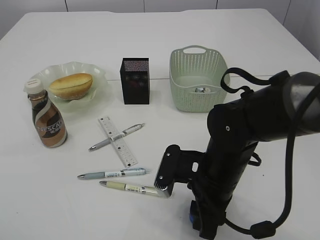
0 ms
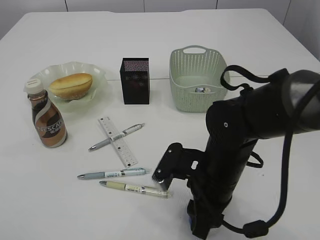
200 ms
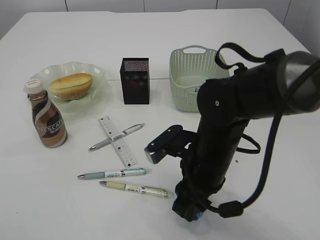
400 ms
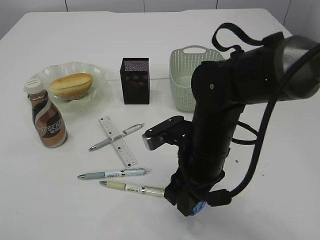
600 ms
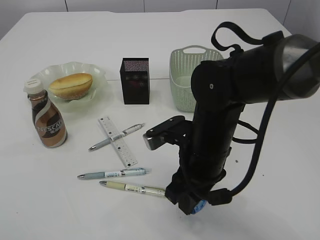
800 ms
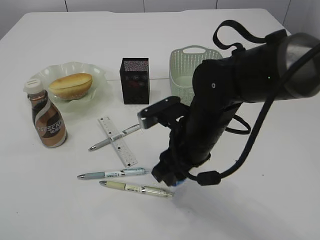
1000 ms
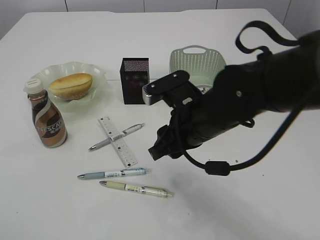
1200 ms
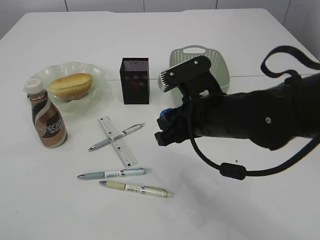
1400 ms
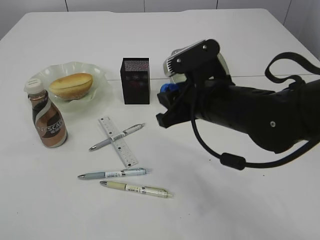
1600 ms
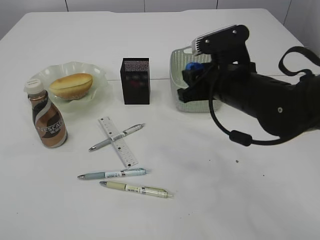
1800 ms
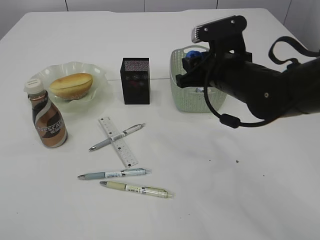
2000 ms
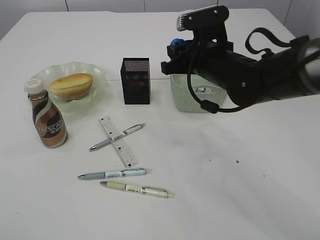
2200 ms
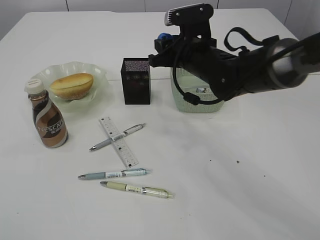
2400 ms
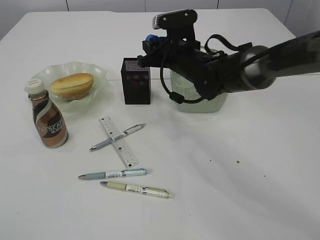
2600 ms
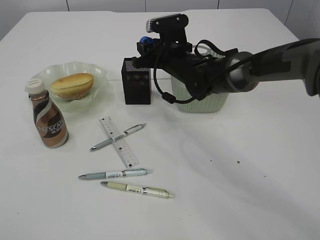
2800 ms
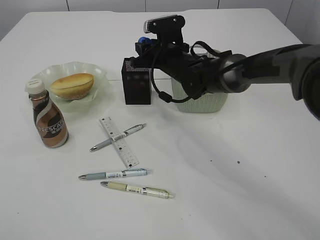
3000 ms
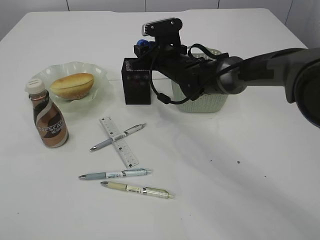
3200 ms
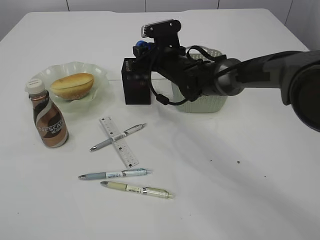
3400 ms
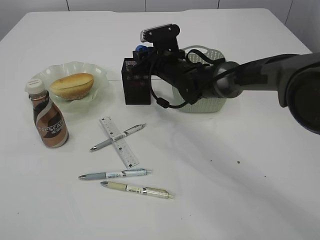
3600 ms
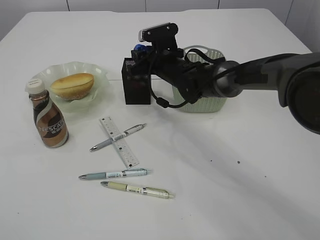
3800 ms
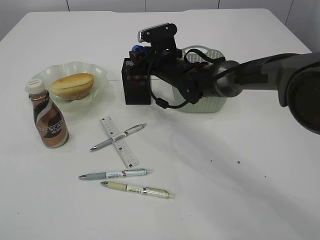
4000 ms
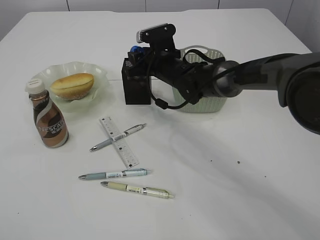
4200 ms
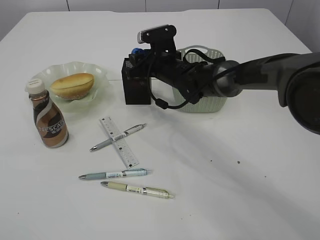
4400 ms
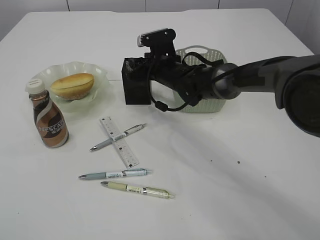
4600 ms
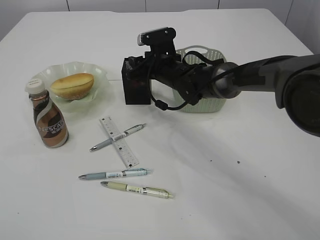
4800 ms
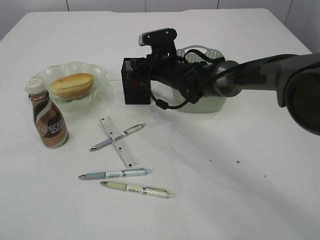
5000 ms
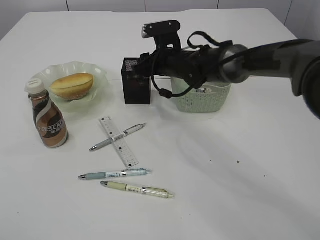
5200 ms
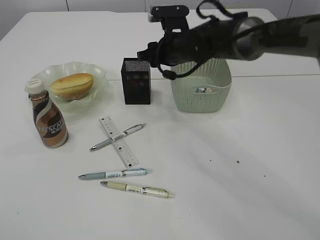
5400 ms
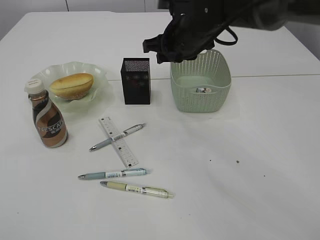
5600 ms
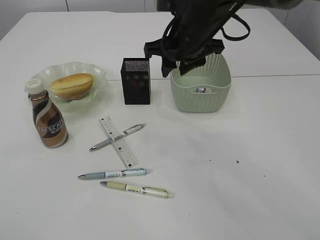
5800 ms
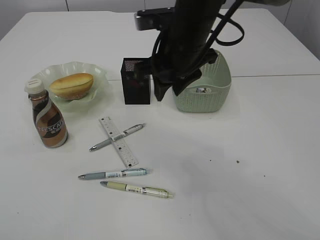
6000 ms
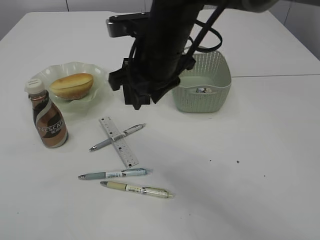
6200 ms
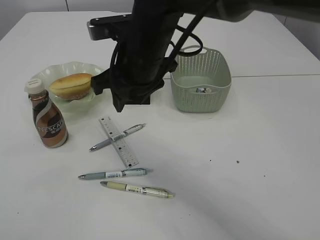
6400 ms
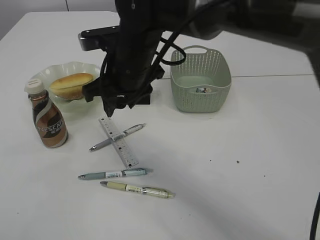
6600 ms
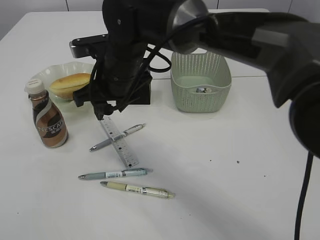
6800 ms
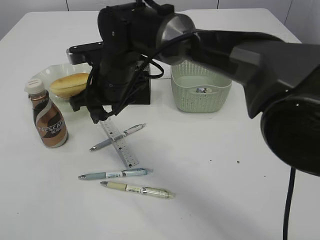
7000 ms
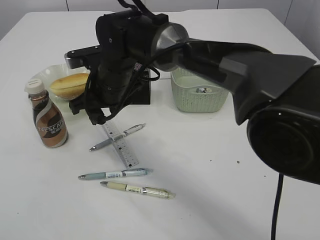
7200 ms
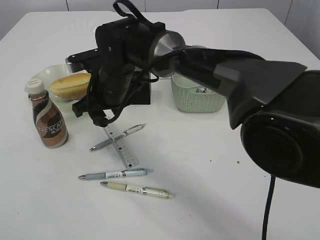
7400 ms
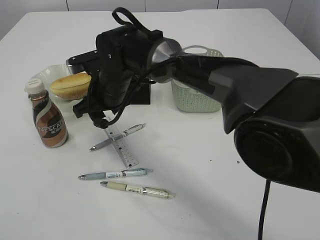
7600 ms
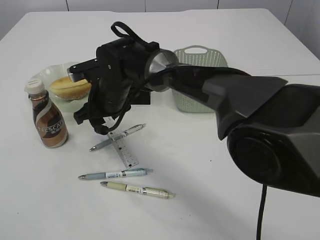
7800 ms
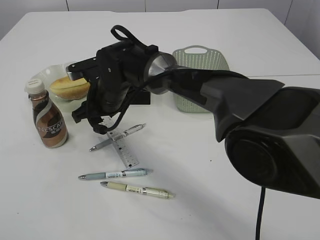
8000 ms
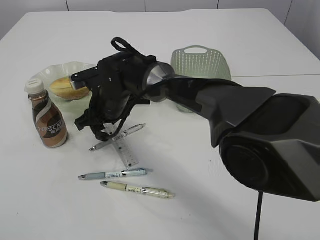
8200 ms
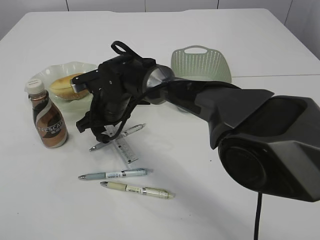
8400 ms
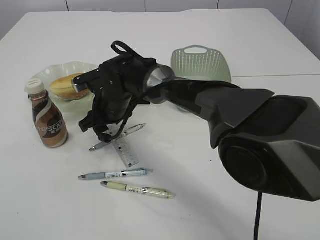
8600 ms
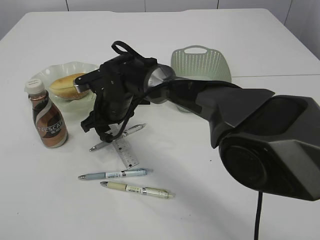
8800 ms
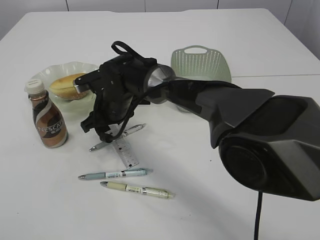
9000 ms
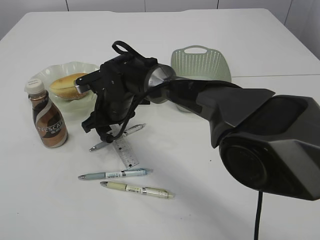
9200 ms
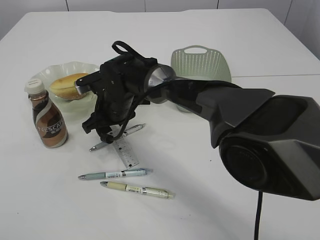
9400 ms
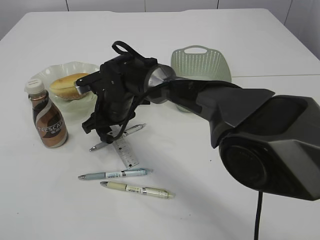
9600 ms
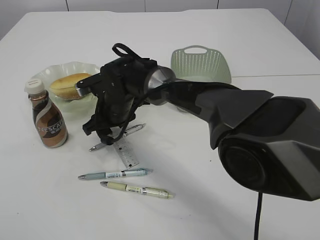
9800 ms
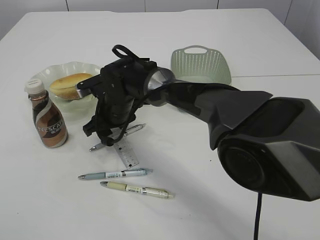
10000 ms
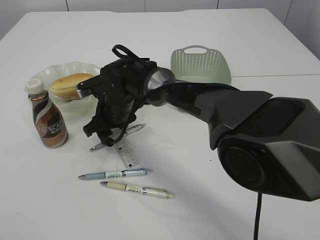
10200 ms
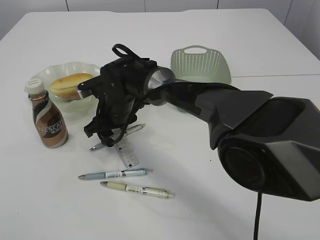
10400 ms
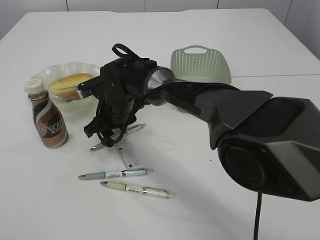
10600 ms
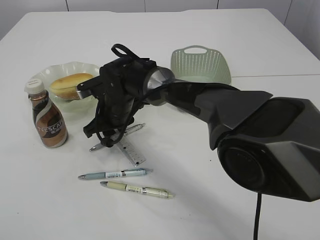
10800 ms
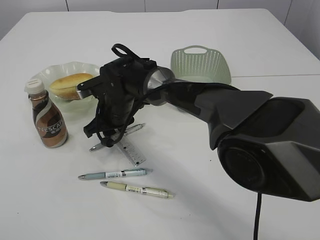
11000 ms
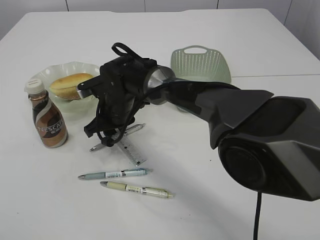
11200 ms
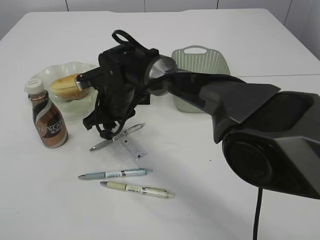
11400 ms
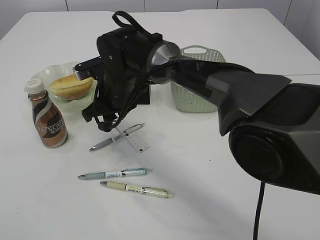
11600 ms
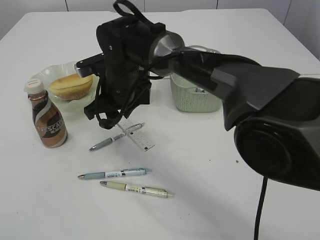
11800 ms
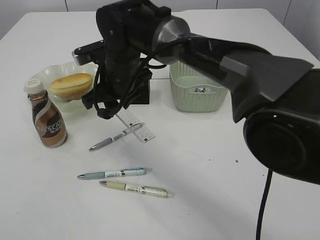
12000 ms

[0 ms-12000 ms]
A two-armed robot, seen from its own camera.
Step, 600 ms to 5200 ms: Place the blue pencil sharpener into the pen holder.
Step, 5400 ms to 11800 ms: pick up the ruler.
0 ms to 1600 ms: The right gripper goes approximately 10 cm upward.
1600 ms to 3000 ms: The right gripper moves forward, roughly 20 cm.
3000 ms to 4400 ms: The grippers make only small movements.
4400 ms to 6000 ms: The right gripper shifts about 20 cm backward and upward.
6000 ms to 7600 ms: The right gripper travels to the left and downward by roughly 15 cm.
7600 ms to 9000 ms: The right gripper goes some 5 cm downward.
9000 ms to 10400 ms: The two grippers keep their place.
10400 ms to 12000 ms: The right gripper travels upward by about 10 cm.

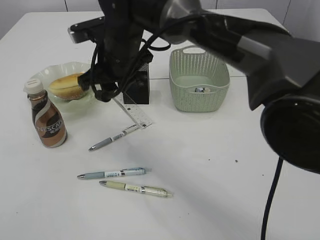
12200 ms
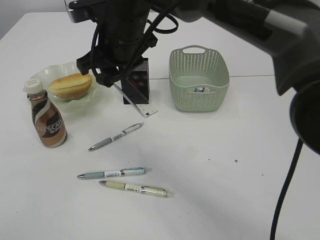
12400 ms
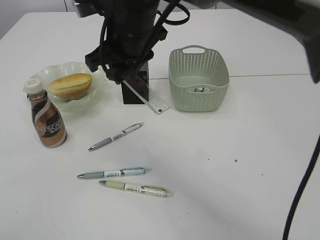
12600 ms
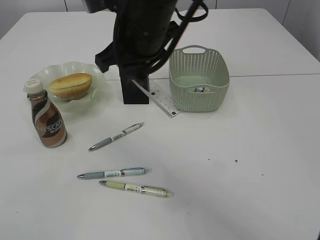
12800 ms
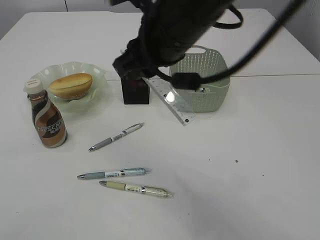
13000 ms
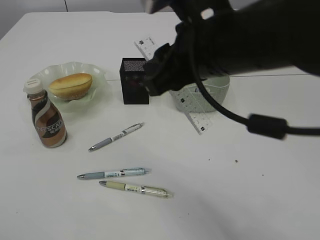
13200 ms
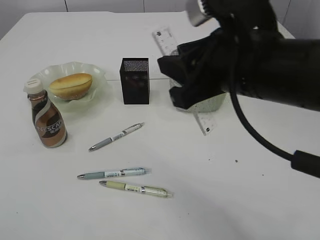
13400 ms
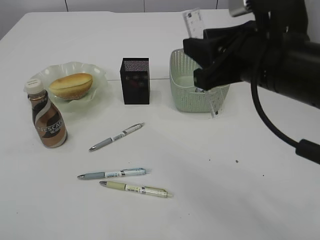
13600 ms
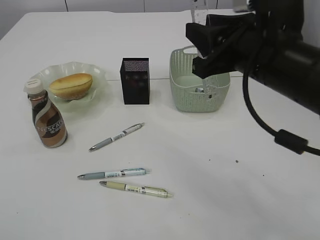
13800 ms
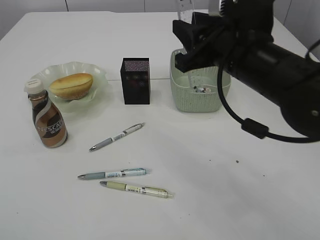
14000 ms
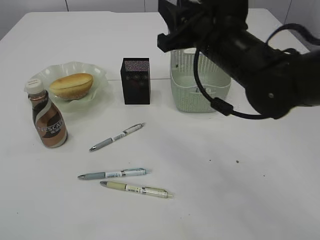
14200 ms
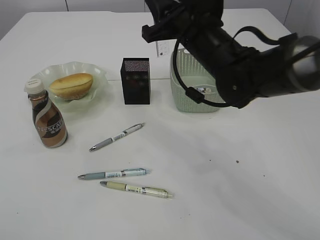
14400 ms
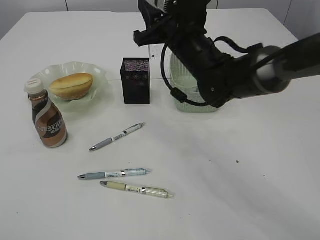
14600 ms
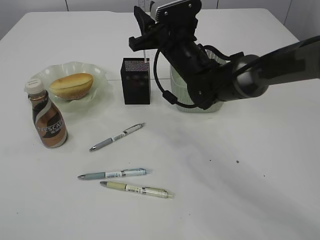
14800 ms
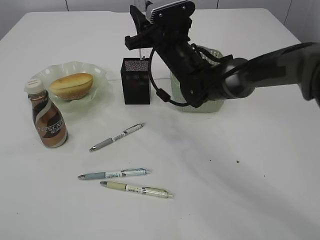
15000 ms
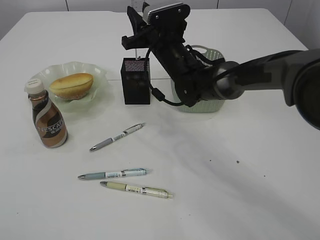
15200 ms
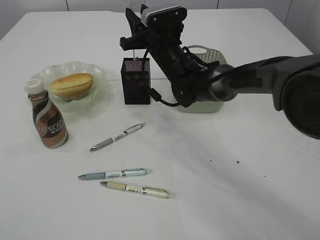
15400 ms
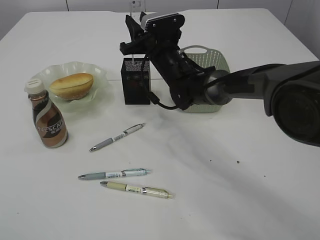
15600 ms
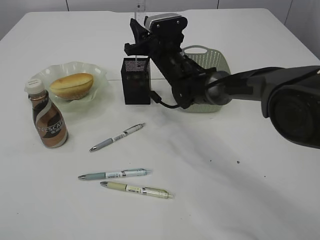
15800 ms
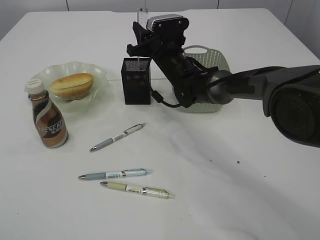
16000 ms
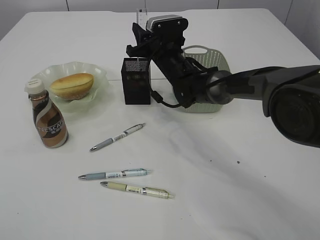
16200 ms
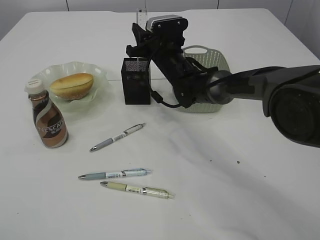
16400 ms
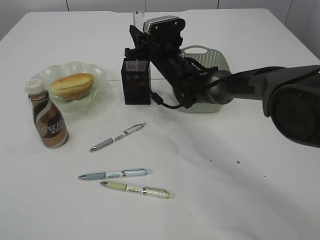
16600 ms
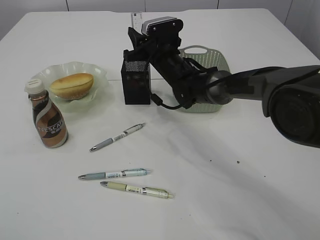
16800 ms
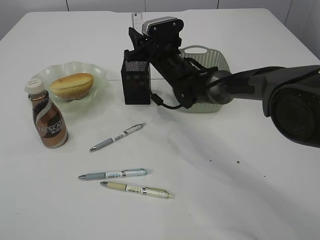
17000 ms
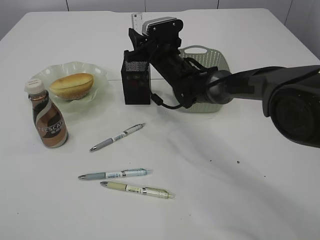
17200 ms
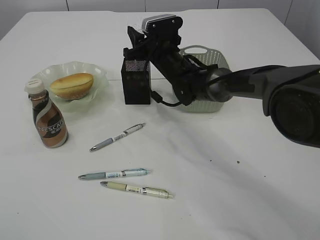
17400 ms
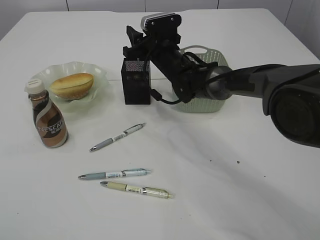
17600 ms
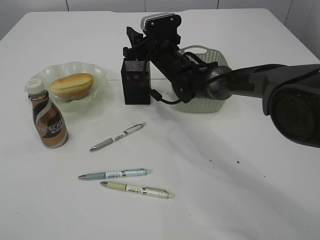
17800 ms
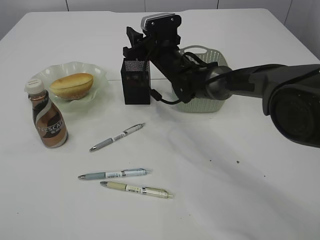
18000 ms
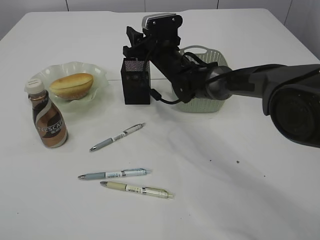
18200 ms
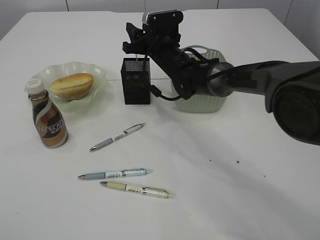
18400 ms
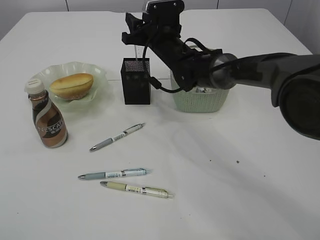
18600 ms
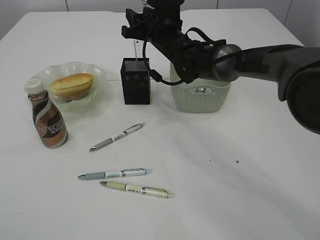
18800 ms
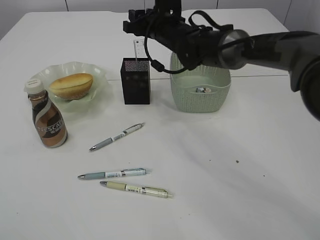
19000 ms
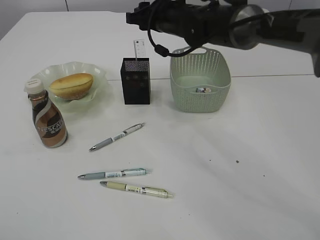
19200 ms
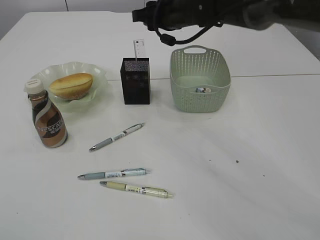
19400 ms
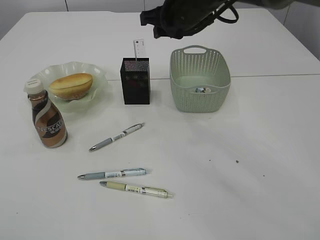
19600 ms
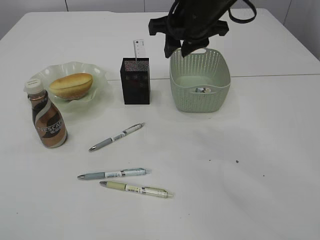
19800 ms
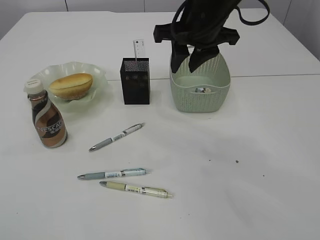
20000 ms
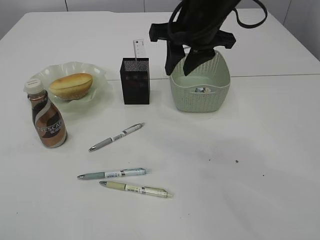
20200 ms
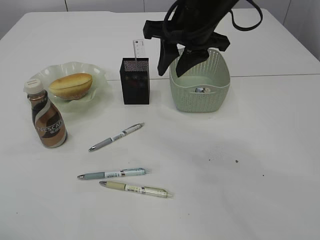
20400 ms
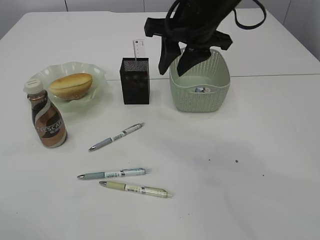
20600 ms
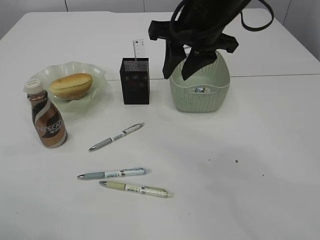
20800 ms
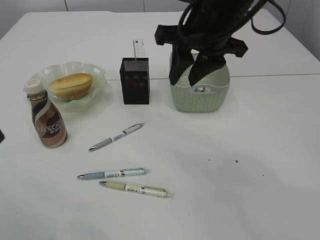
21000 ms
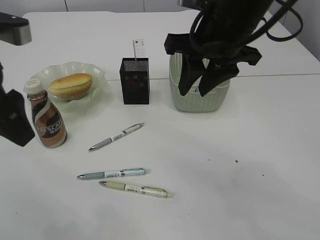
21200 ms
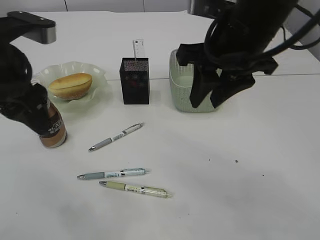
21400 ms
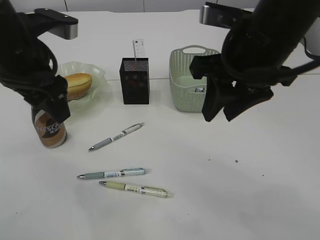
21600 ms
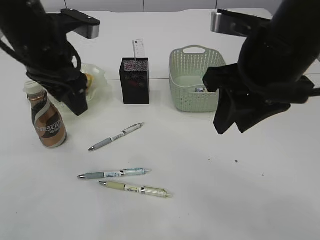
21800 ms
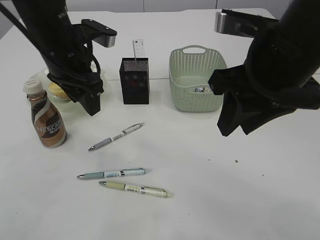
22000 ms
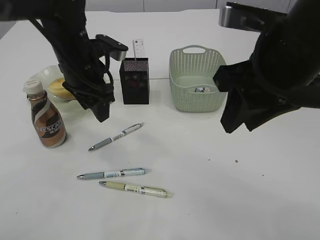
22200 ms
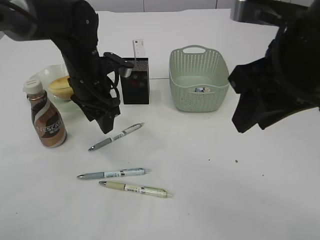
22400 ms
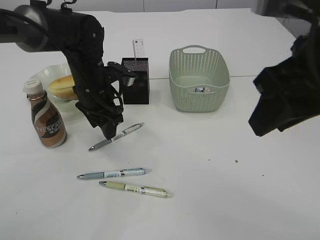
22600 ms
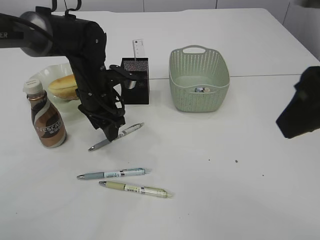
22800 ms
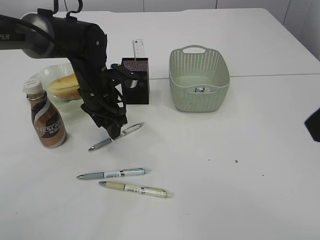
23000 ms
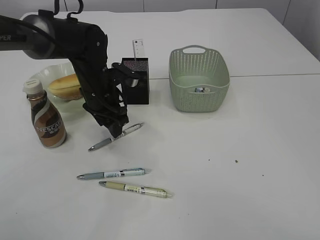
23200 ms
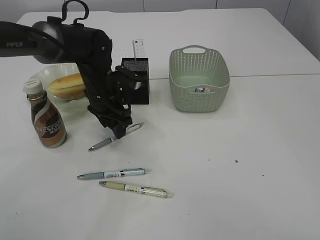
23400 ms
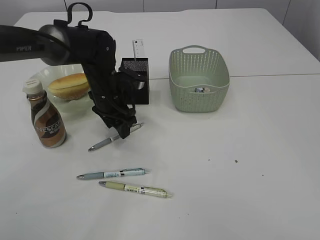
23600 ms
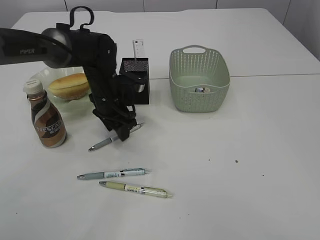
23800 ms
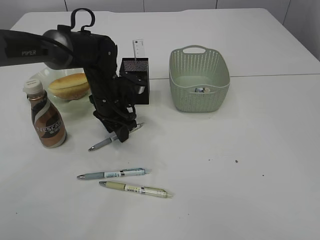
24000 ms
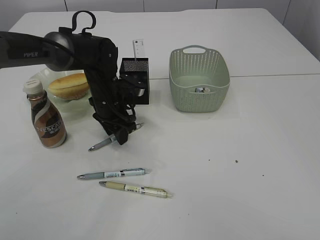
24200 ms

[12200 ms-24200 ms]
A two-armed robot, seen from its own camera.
Step, 12200 ms to 18600 ms: Place the ruler into the pen holder.
12200 ms to 13800 ms: The right gripper shifts roughly 25 cm to the right and backward.
13800 ms to 15200 ms: The right gripper is displaced forward, to the left and downward by some 25 cm.
15200 ms to 16600 ms: The right gripper changes place by some 5 cm.
16600 ms to 18200 ms: The two grippers keep their place.
18200 ms to 19800 ms: The right gripper travels upward and backward by approximately 15 cm.
19800 ms to 21200 ms: The right gripper shifts about 10 cm backward. The left gripper heads forward and to the right, covering roughly 15 cm.
21200 ms to 22600 ms: The right gripper moves backward and to the right, about 15 cm. Meanwhile the left gripper moves forward, downward and to the right, about 25 cm.
22600 ms to 24200 ms: The right gripper heads backward and to the right, covering about 15 cm; the left gripper changes place by some 5 cm.
